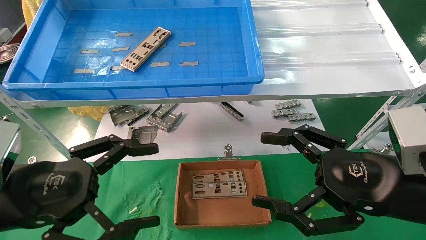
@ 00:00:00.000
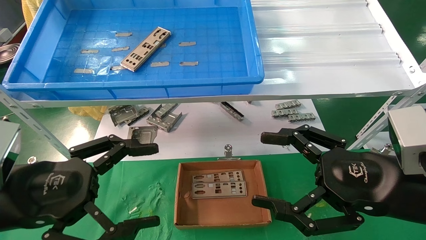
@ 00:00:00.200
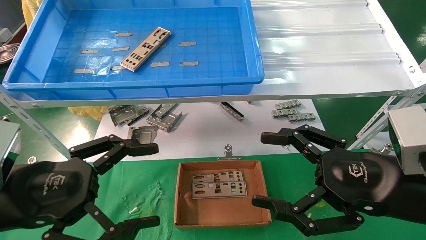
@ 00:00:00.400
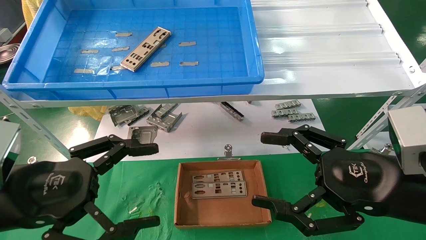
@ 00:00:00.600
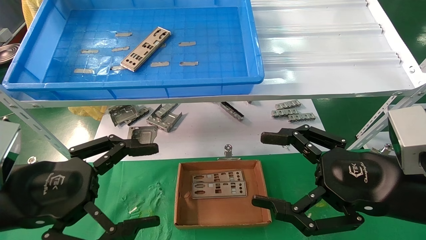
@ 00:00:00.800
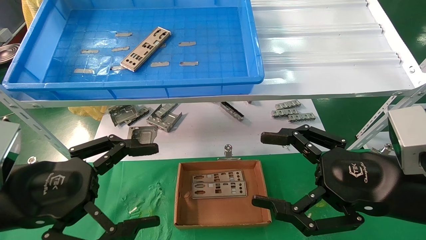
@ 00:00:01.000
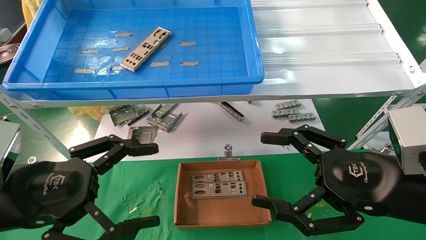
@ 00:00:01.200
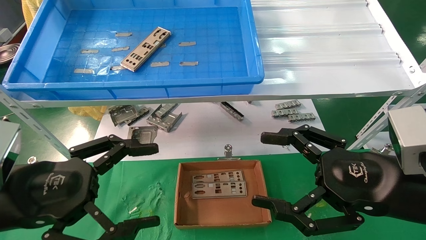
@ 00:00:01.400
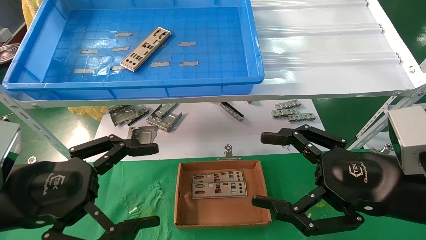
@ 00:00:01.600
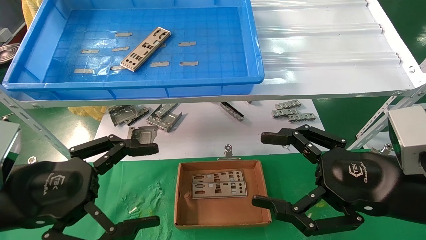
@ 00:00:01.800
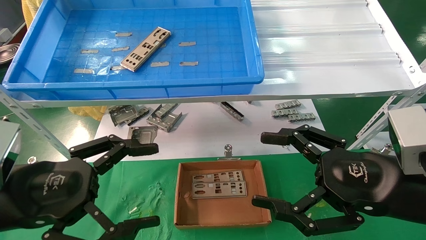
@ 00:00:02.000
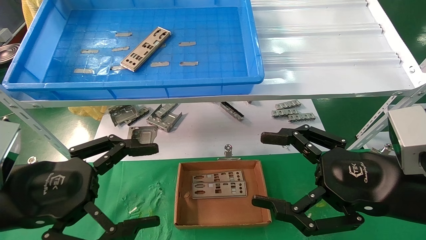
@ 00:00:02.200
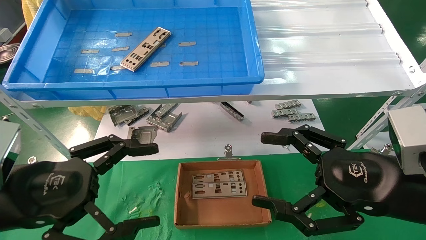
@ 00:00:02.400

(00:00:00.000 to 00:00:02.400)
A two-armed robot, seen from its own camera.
Task of the whole recording: pick up the parts on the tray and put them in the cardboard box.
00:00:00.000 - 00:00:02.400: The two grippers keep their place.
